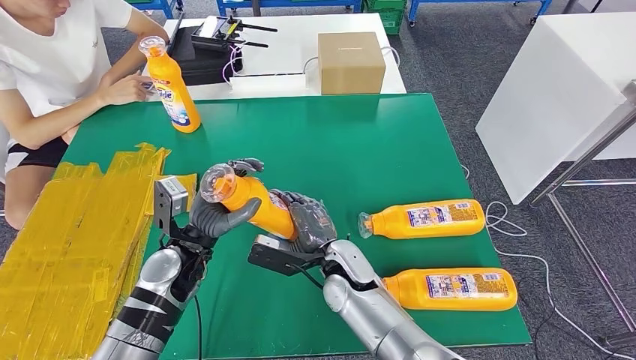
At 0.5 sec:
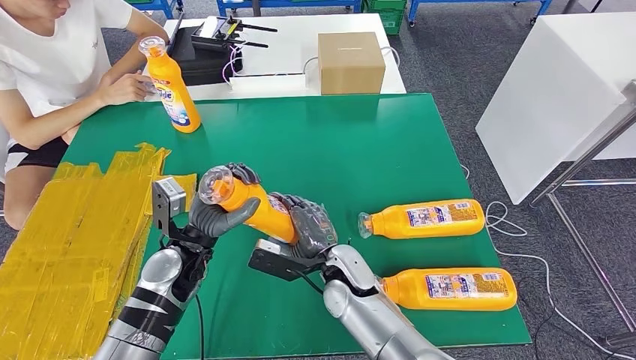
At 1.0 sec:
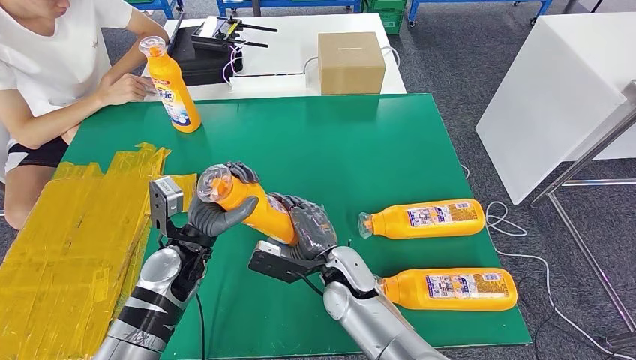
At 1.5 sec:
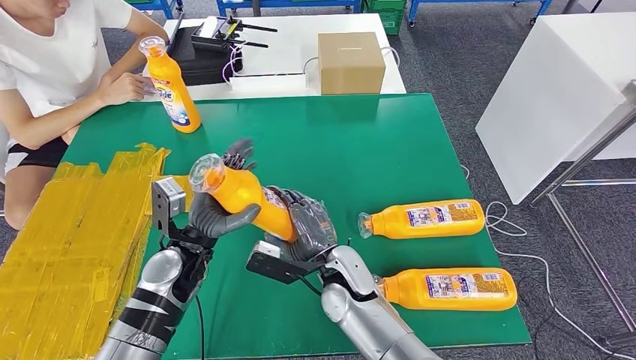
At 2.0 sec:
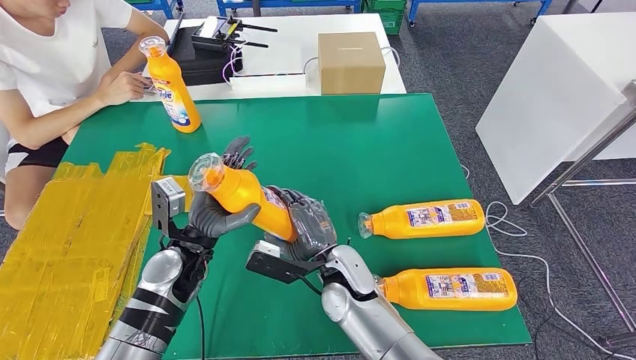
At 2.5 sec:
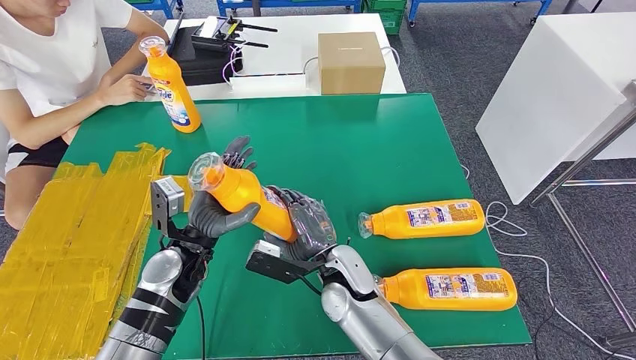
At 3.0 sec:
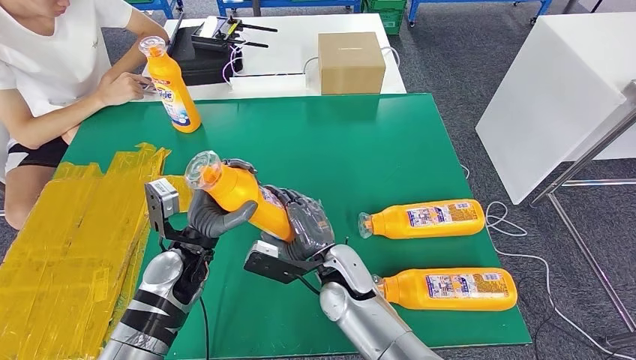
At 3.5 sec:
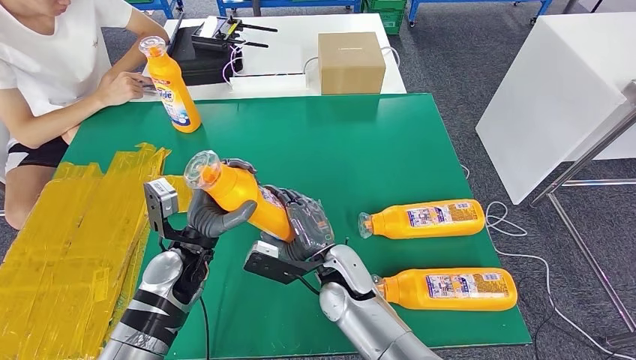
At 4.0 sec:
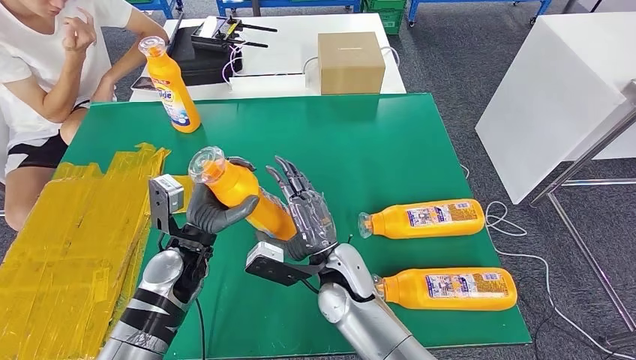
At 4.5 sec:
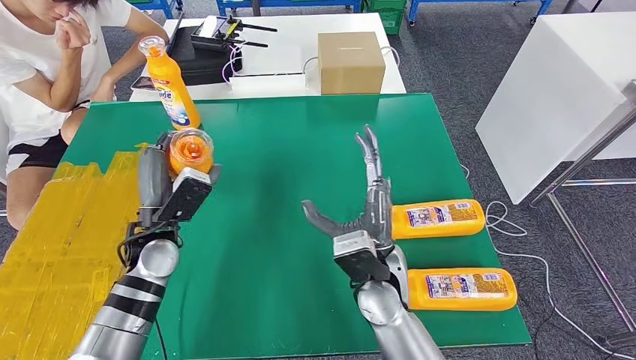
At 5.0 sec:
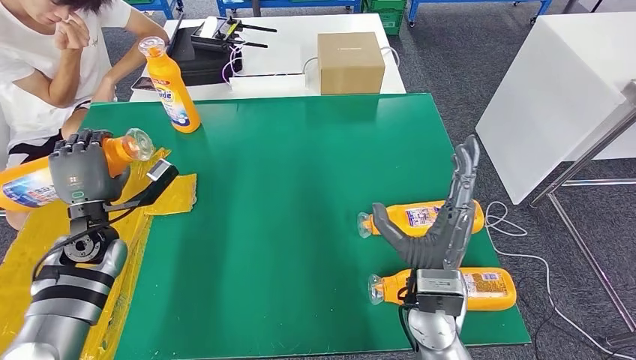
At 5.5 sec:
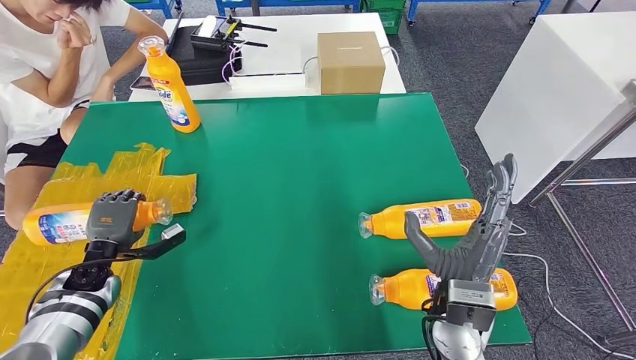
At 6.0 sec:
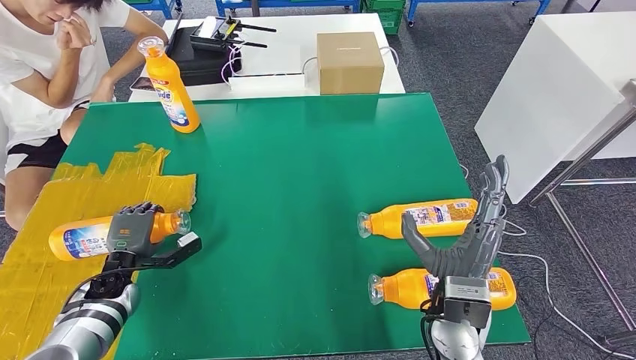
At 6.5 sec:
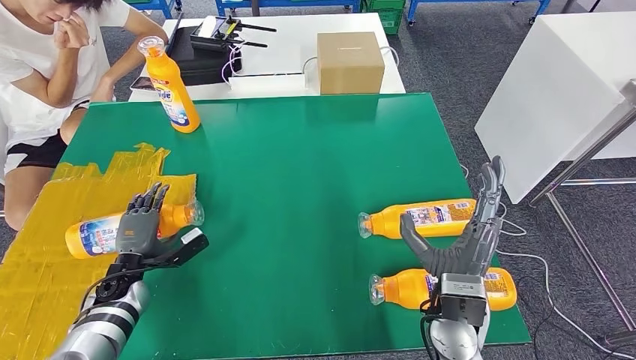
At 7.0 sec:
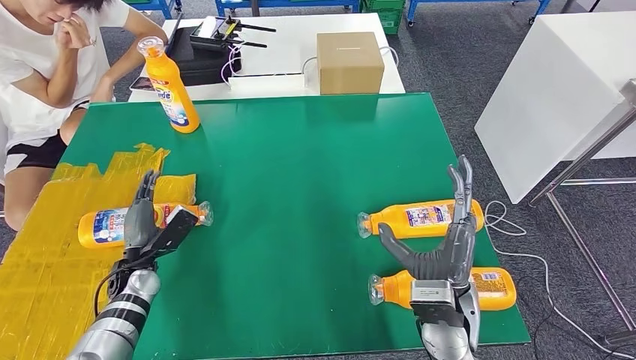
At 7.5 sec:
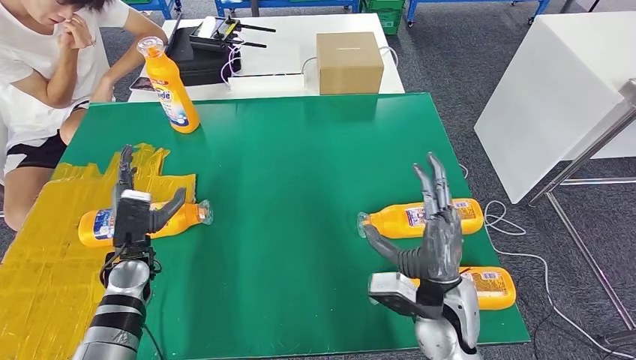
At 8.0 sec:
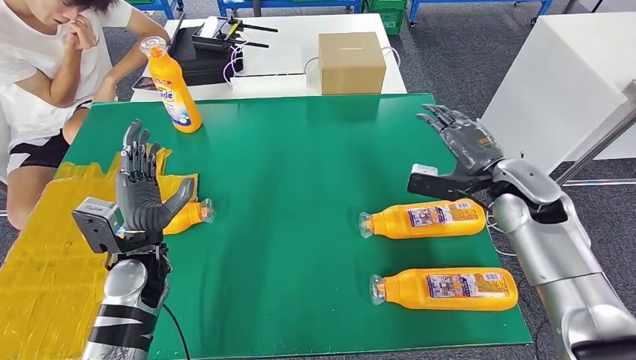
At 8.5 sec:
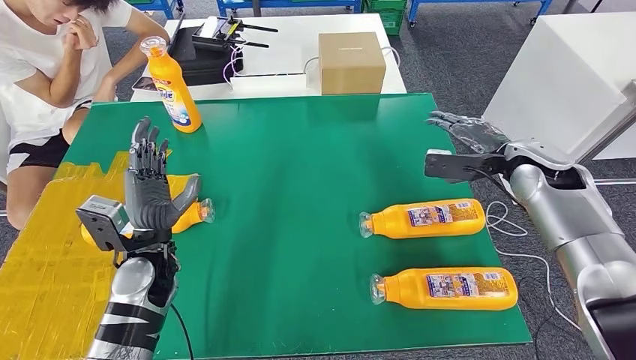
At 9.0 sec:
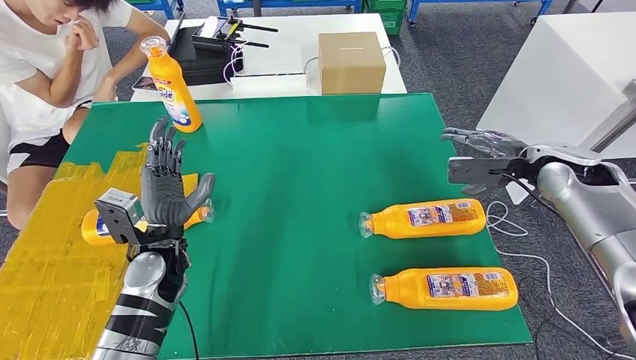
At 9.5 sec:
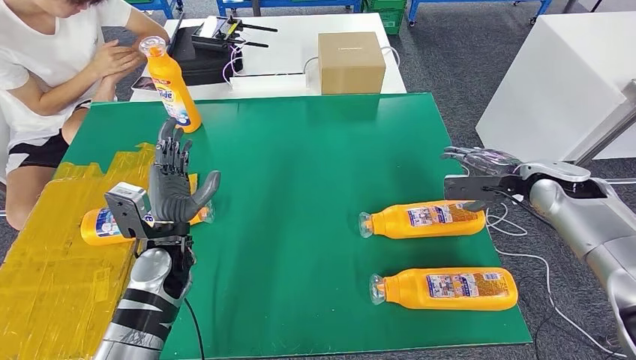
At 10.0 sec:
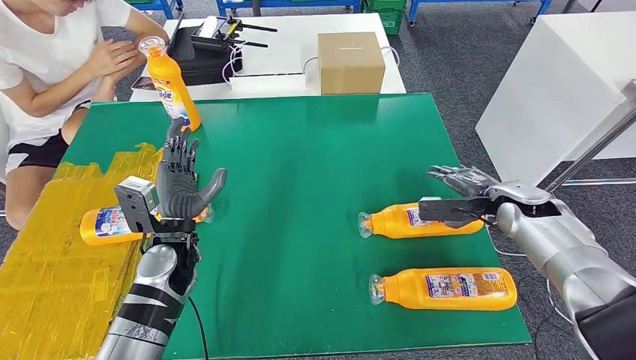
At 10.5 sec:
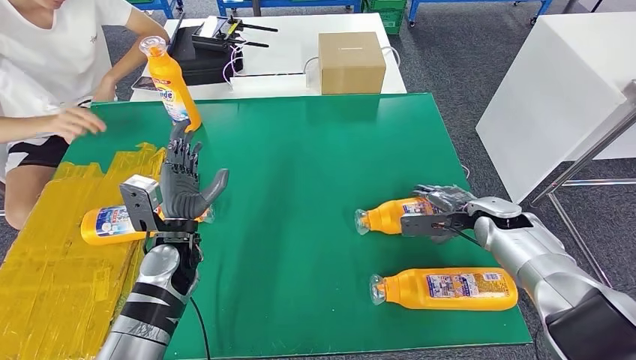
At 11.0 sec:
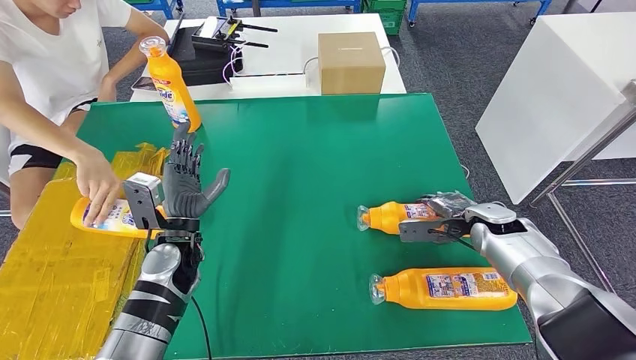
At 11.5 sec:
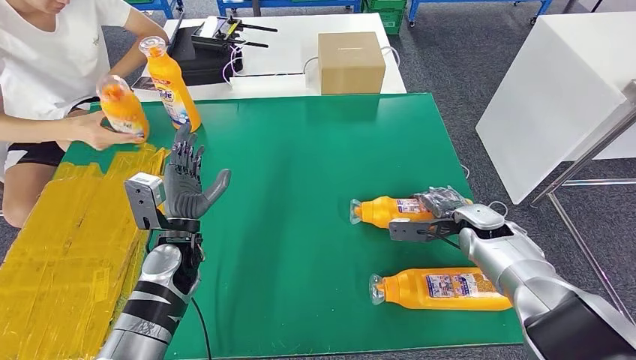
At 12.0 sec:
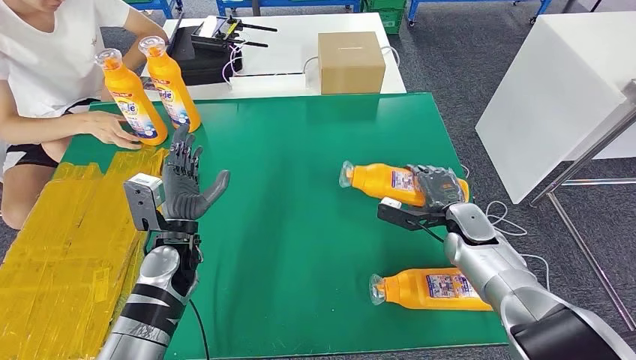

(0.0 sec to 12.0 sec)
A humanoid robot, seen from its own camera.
Step, 0.0 sec - 7.0 sec: Flip the fast-moving consumer goods bottle to the front side.
0.0 sec - 2.0 sec: The hands make only small movements.
2.0 sec - 4.0 sec: The hands stay close to where they were, moving slightly.
8.0 sec - 10.0 sec: The left hand changes place by roughly 5 cm; the right hand is displaced downward and to the right by some 10 cm.

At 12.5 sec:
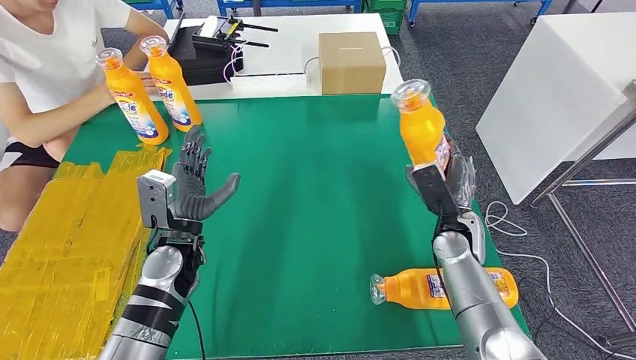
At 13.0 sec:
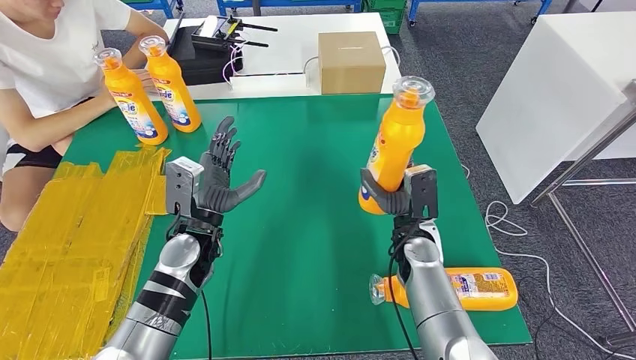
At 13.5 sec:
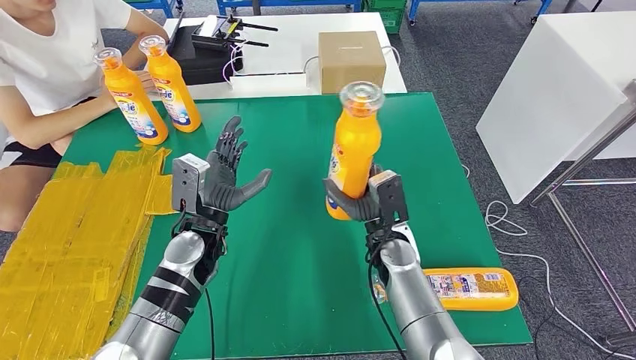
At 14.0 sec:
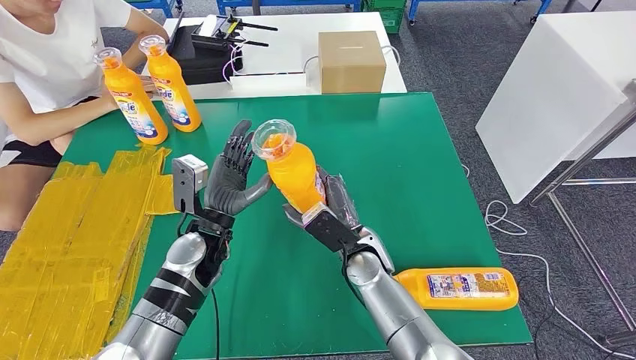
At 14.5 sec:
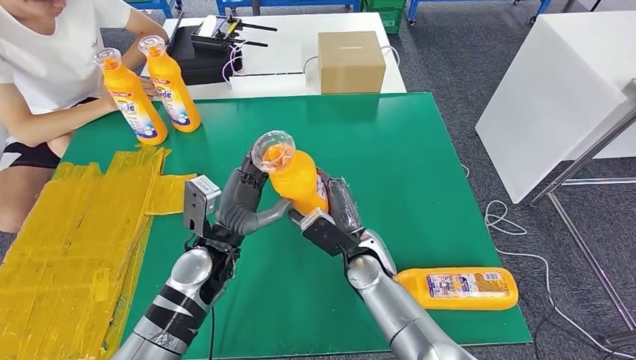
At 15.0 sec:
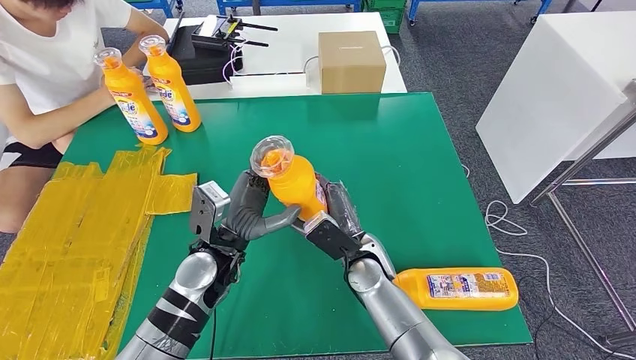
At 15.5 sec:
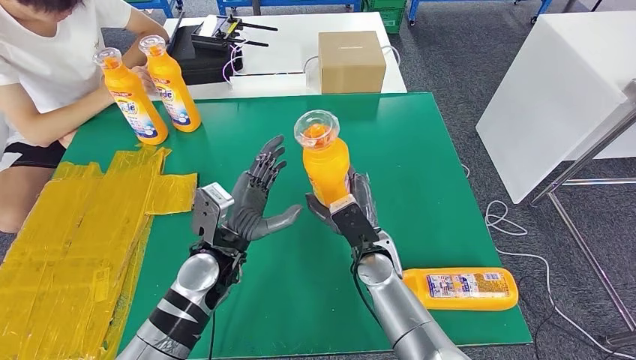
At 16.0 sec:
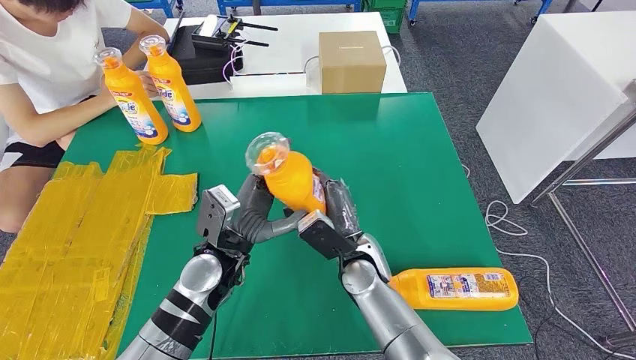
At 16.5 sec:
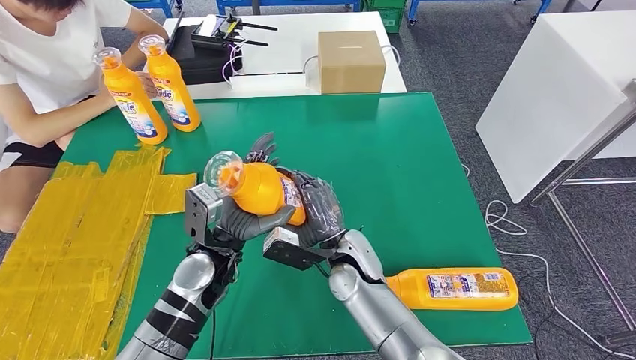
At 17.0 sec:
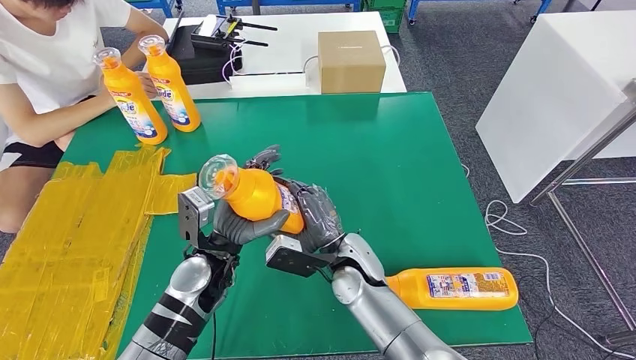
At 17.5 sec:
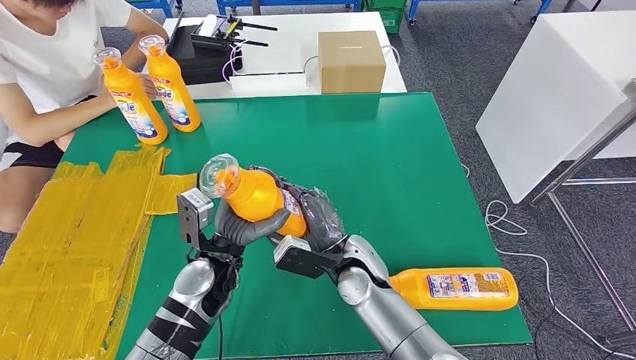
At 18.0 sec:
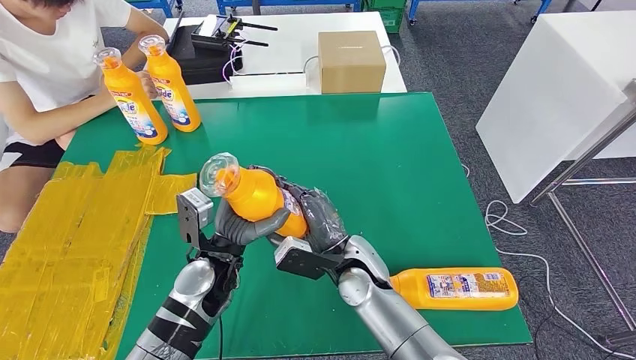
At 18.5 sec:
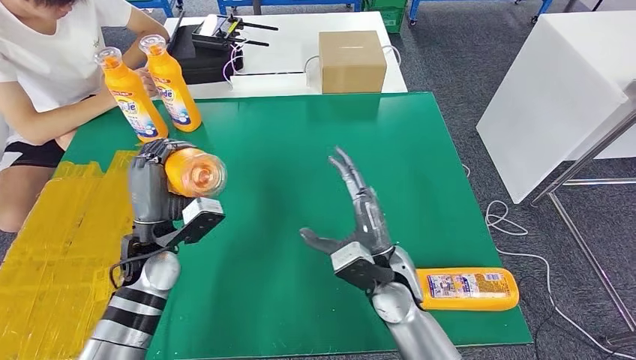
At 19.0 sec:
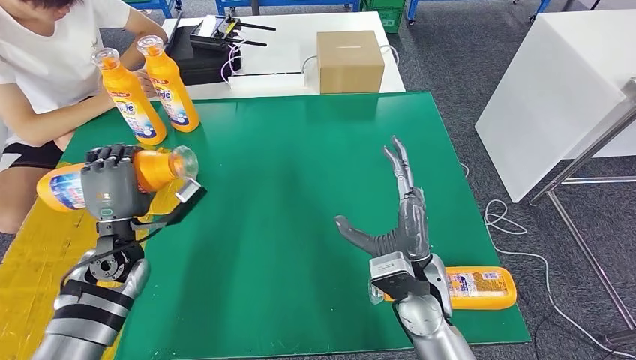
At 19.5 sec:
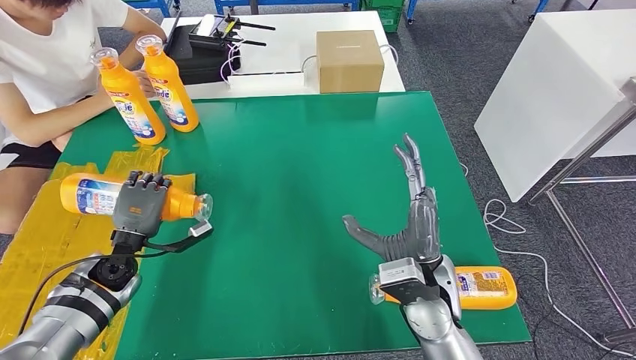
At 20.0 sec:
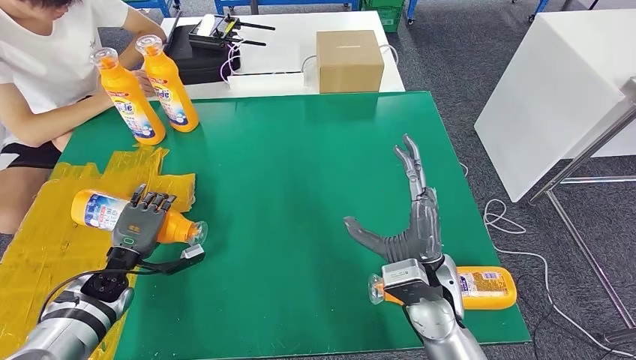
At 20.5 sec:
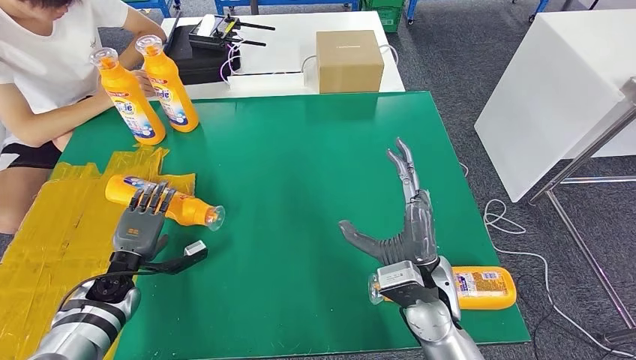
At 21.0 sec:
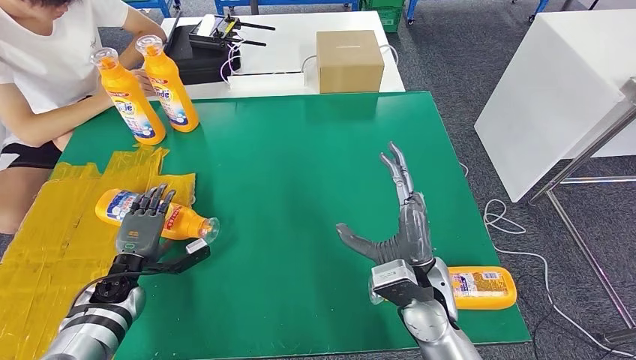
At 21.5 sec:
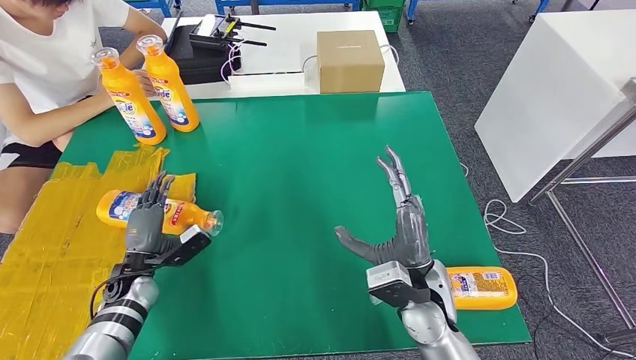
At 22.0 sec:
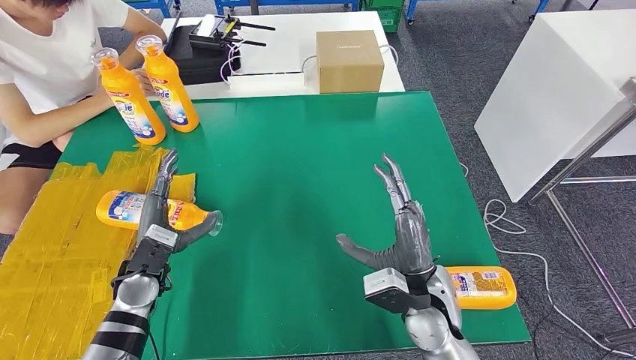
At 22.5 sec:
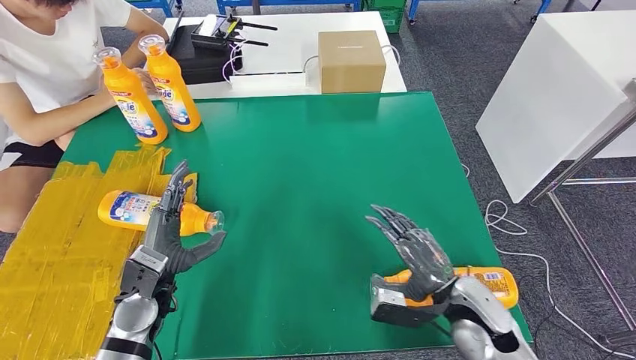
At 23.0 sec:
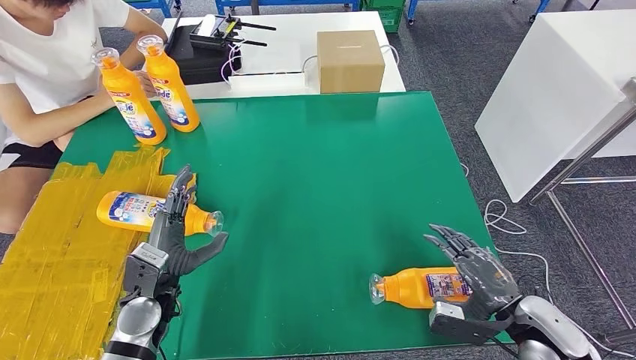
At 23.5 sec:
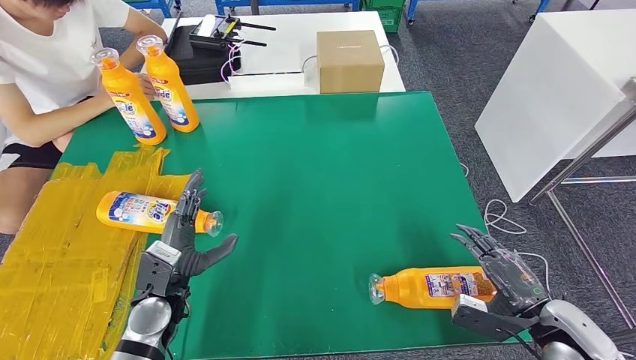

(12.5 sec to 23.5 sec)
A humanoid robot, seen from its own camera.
Step, 19.0 sec - 19.5 sec: Flip the fast-moving consumer goods bottle to the front side.
14.5 sec - 16.0 sec: There are only small adjustments of the hands.
21.5 sec - 23.5 sec: The left hand moves to the right, upward and backward, about 15 cm; the right hand travels to the right by roughly 25 cm.
